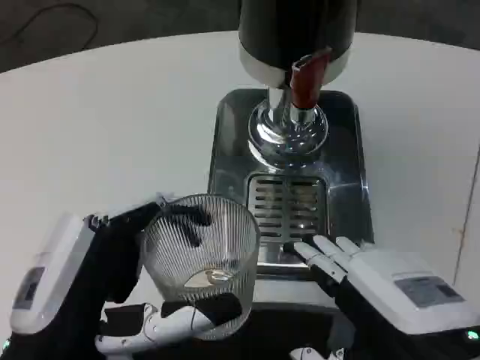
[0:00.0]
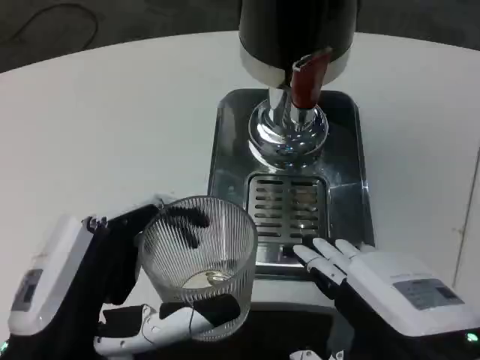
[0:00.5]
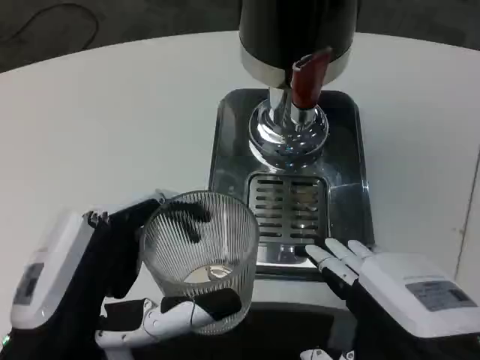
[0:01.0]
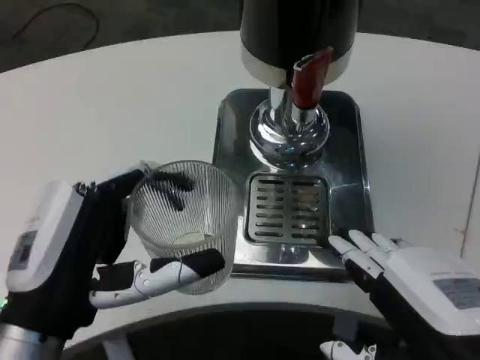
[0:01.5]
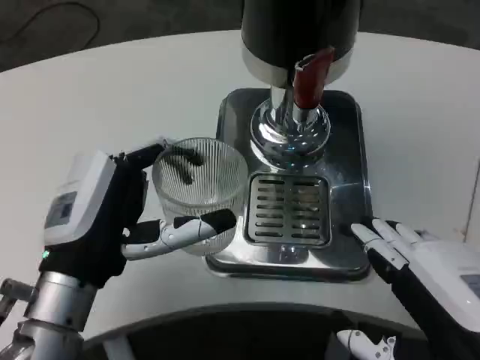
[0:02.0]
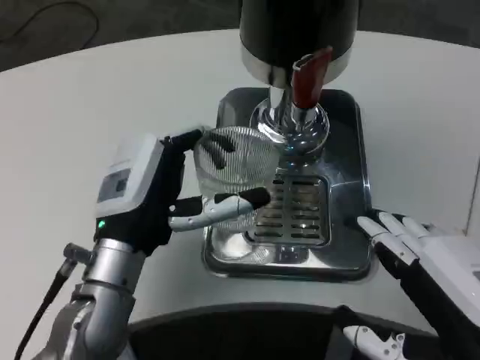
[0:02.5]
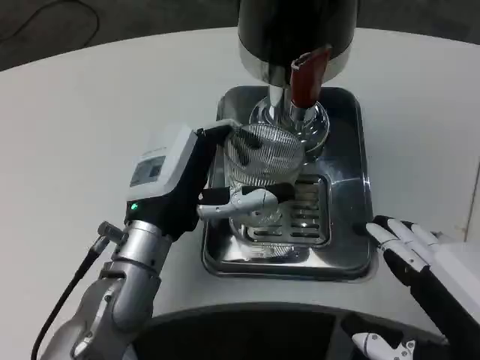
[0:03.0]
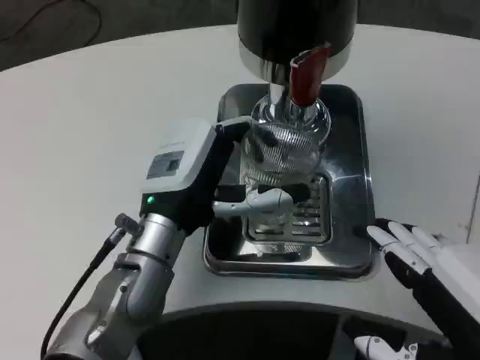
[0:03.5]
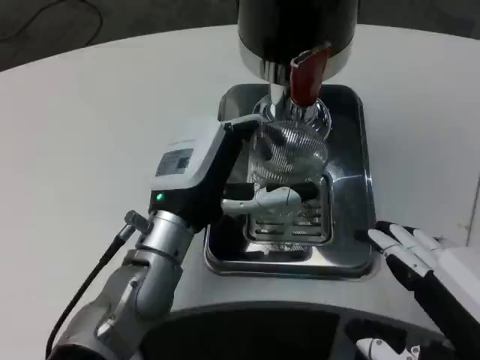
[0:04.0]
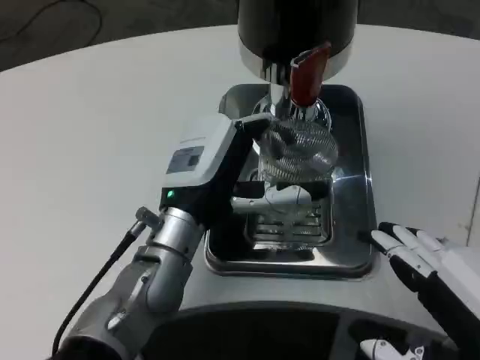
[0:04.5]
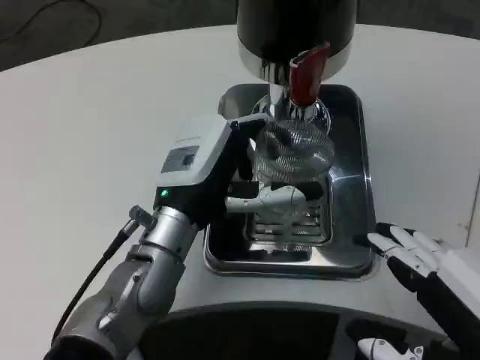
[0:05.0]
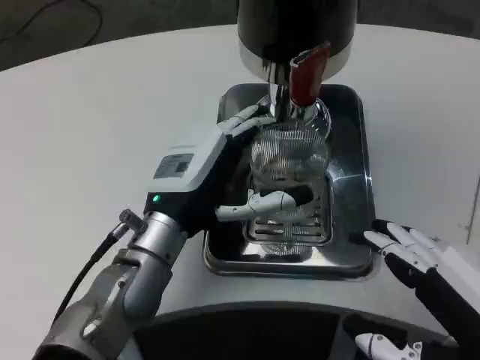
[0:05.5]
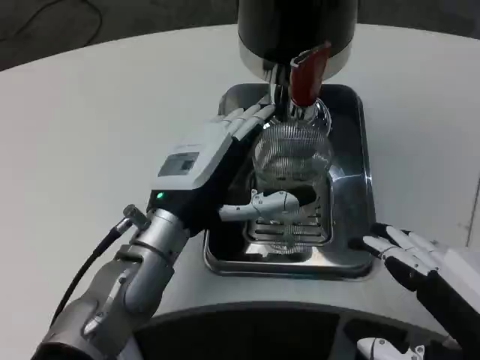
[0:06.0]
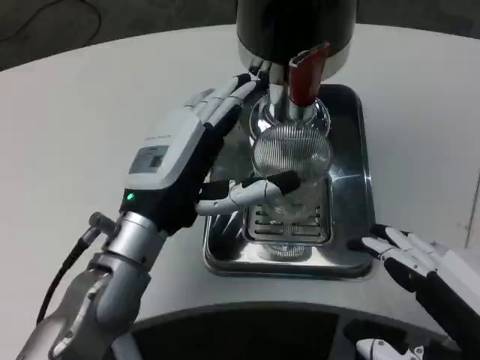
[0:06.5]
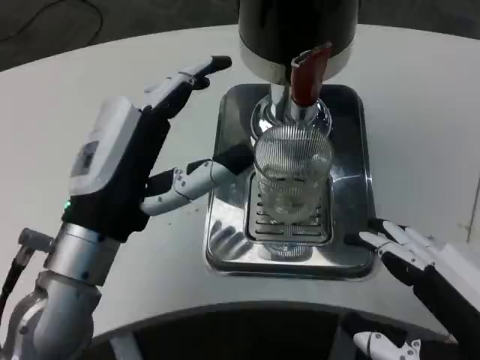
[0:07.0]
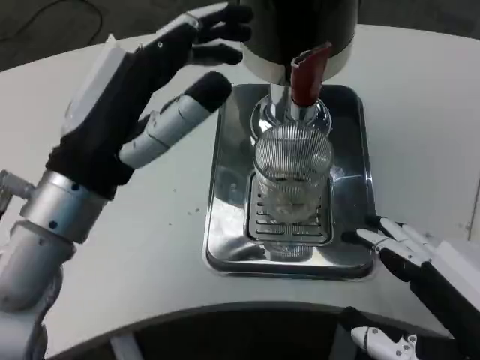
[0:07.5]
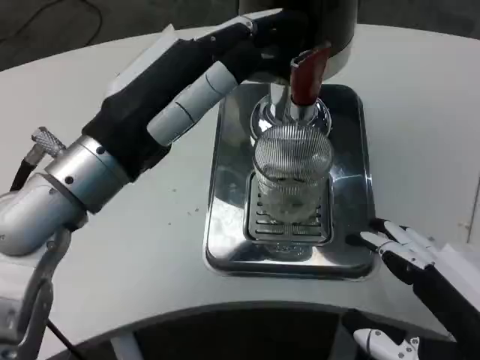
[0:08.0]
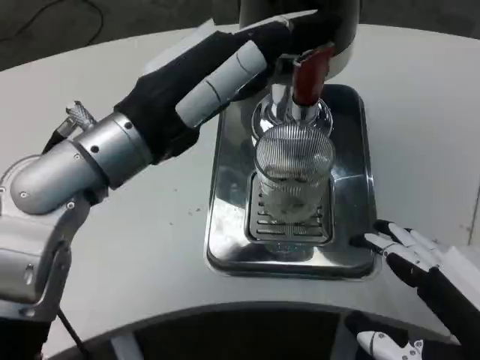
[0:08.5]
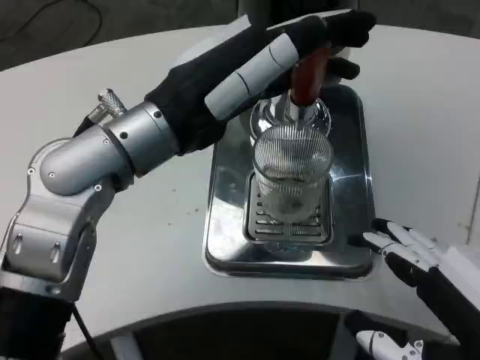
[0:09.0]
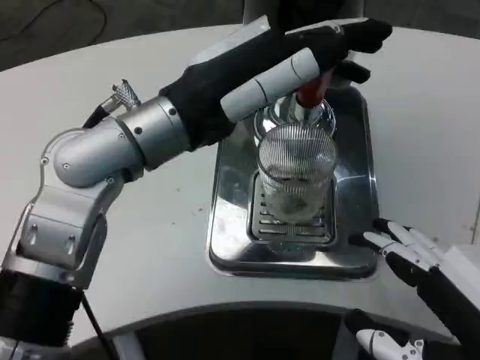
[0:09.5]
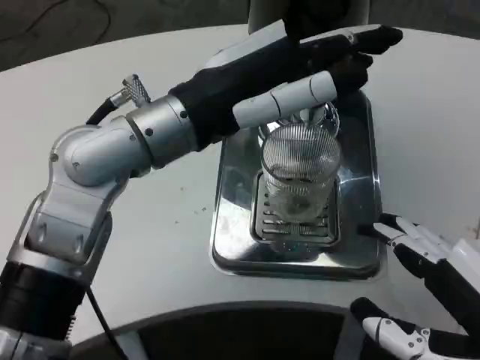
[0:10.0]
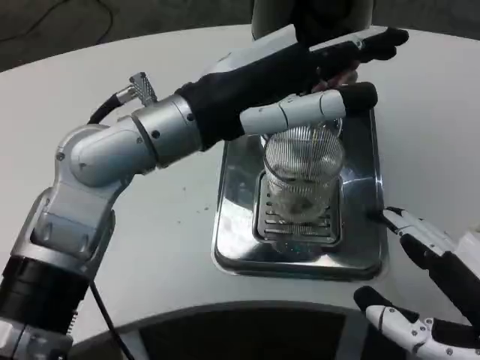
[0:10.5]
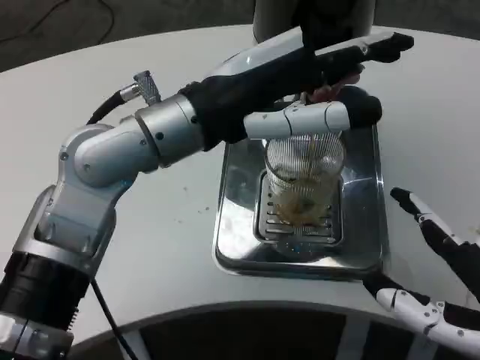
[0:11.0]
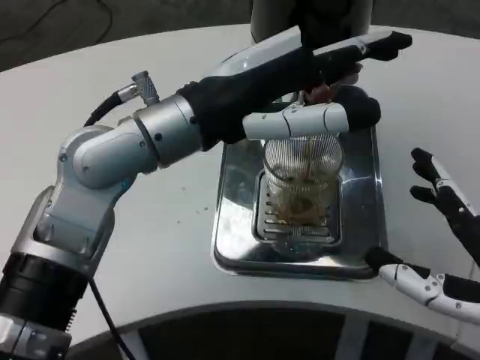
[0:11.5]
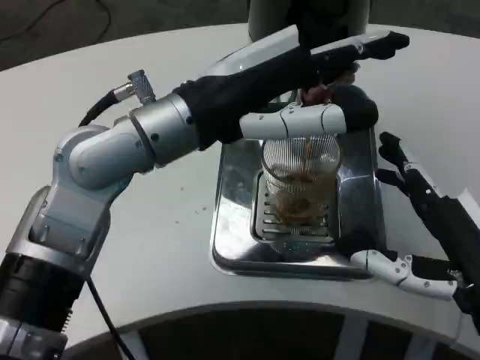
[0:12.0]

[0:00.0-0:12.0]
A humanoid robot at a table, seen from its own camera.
Task of the whole recording: Grasp the cup under the faucet to collect the drink, then remove the cup.
0:00.0 to 0:02.0: The left hand shifts roughly 10 cm forward.
0:02.0 to 0:04.0: The left hand travels forward and to the right by some 10 cm.
0:04.0 to 0:06.0: The hands move only a little.
0:06.0 to 0:08.0: The left hand is displaced upward by roughly 10 cm.
0:08.0 to 0:10.0: The left hand changes place by roughly 5 cm.
0:10.0 to 0:12.0: The right hand travels forward and downward by approximately 10 cm.

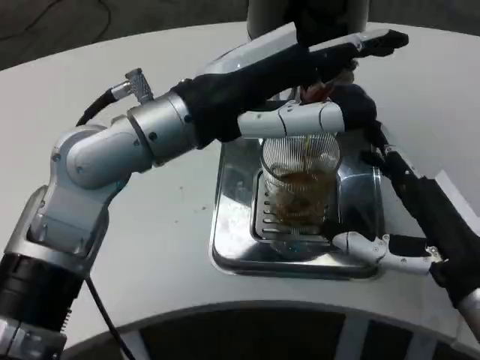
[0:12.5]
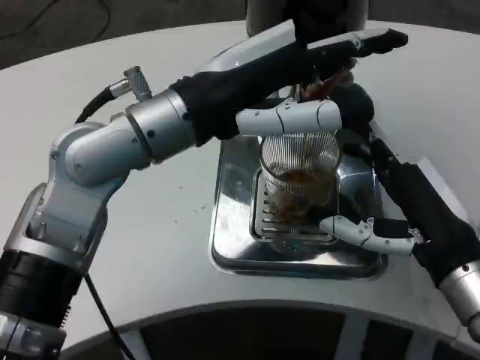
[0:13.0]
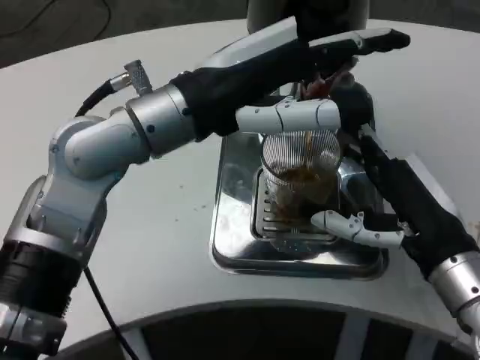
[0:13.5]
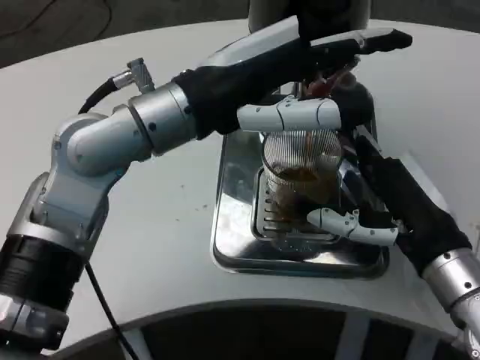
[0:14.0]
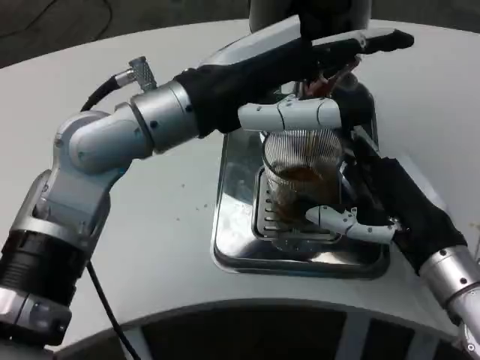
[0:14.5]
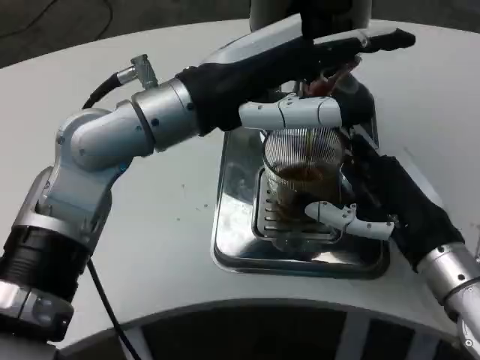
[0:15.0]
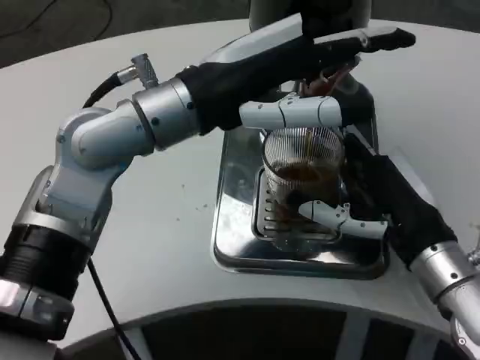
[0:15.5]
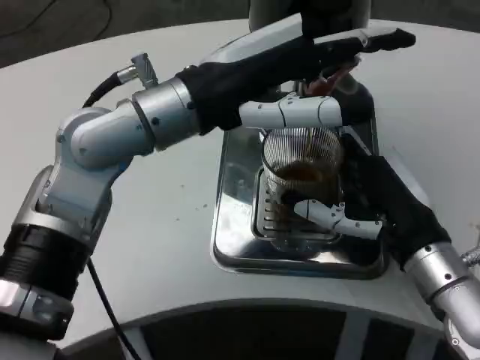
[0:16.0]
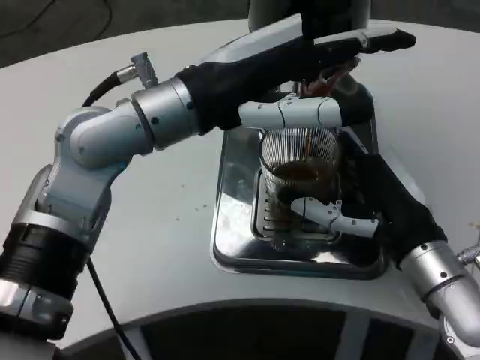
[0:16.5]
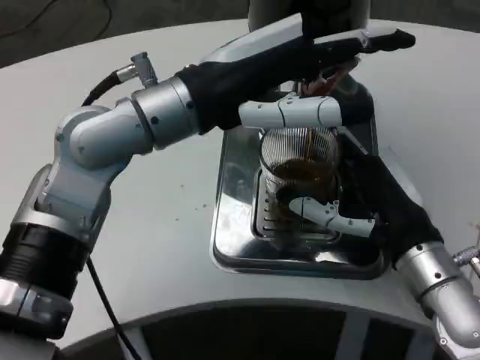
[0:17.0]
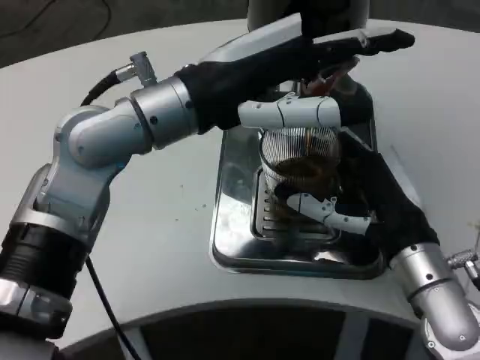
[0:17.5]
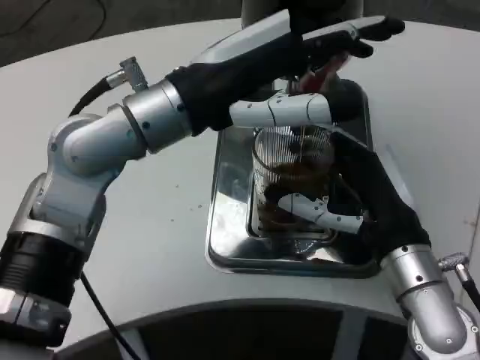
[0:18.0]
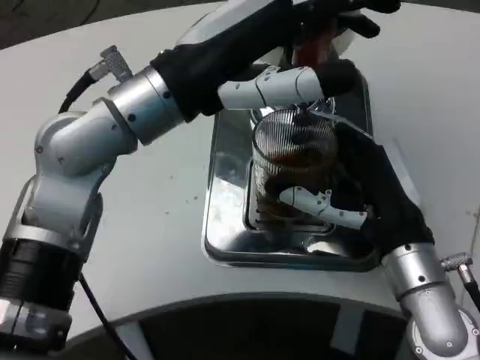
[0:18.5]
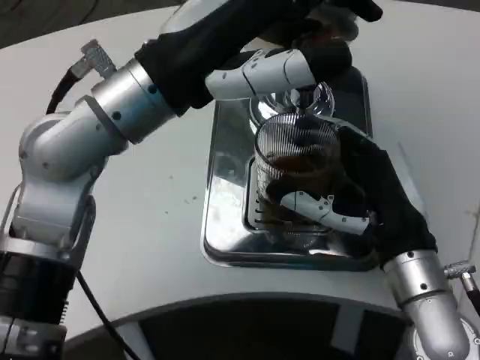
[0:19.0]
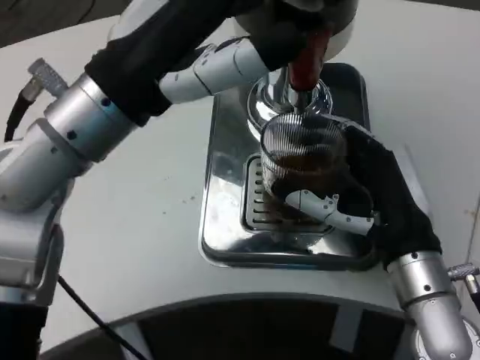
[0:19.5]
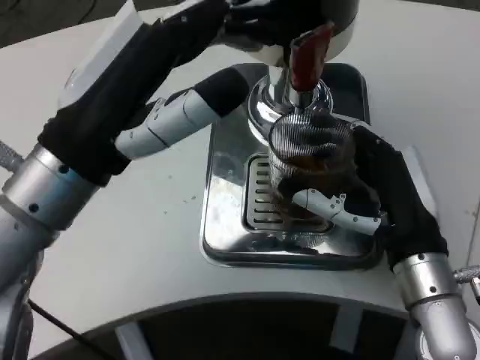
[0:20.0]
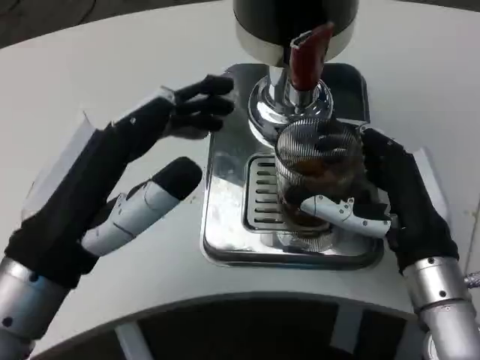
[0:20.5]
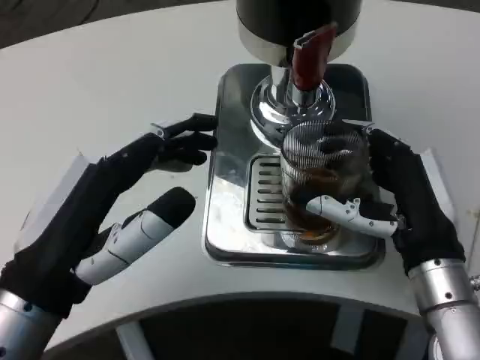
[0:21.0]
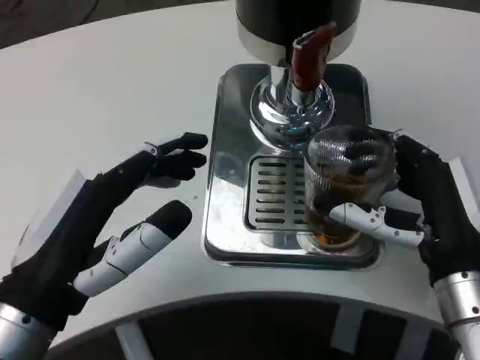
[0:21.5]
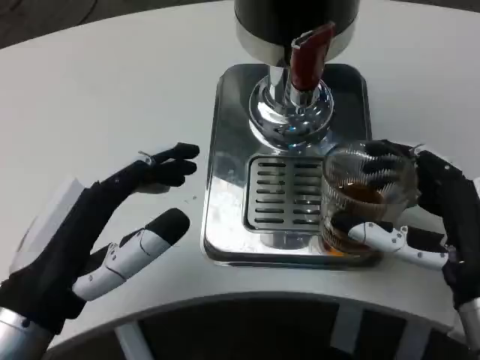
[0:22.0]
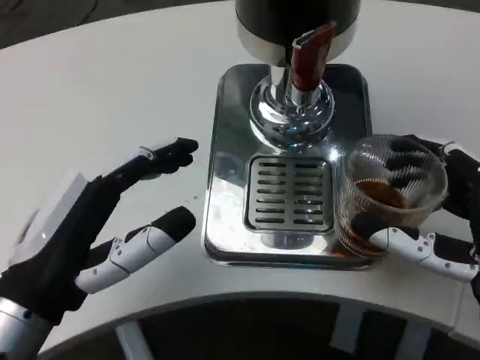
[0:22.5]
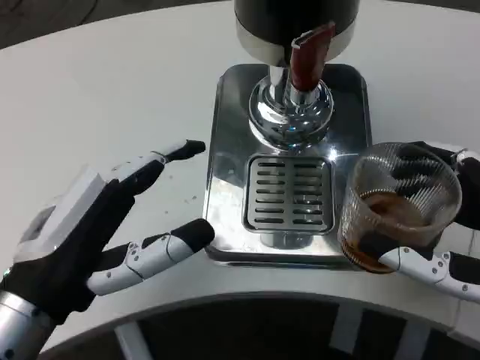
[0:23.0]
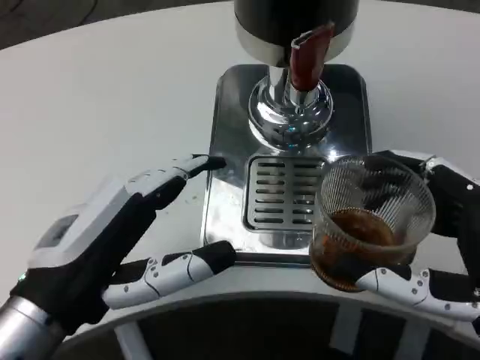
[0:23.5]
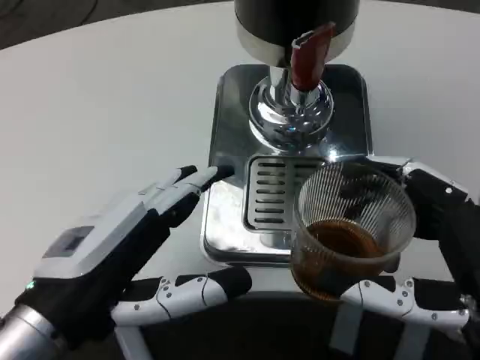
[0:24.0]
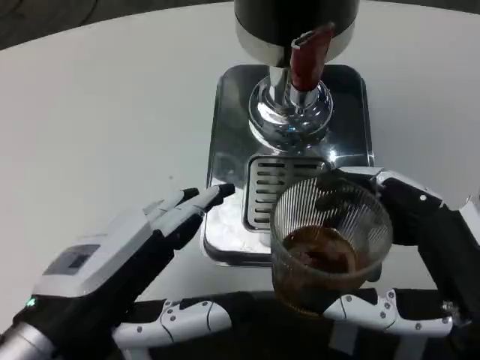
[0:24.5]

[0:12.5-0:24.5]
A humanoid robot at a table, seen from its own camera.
Task of the whole recording: Grasp the cup under the faucet to collect the drink, then remove the cup.
0:14.5 to 0:16.5: The hands move only a little.
0:18.5 to 0:20.5: The left hand shifts roughly 15 cm backward, downward and to the left.
0:20.5 to 0:22.5: The right hand travels backward by some 5 cm.

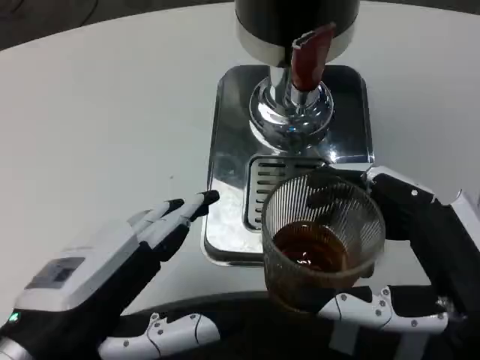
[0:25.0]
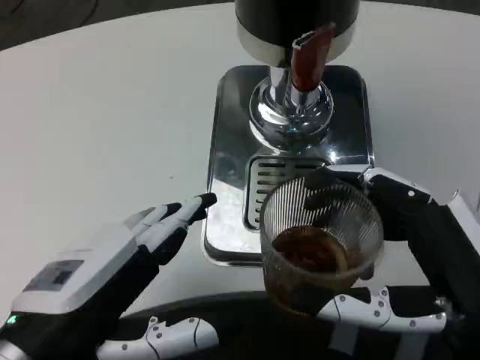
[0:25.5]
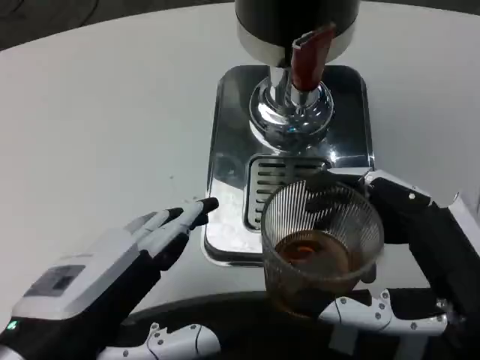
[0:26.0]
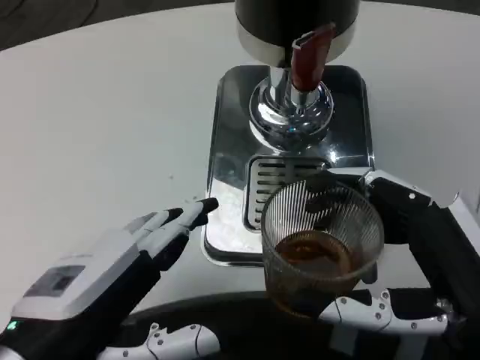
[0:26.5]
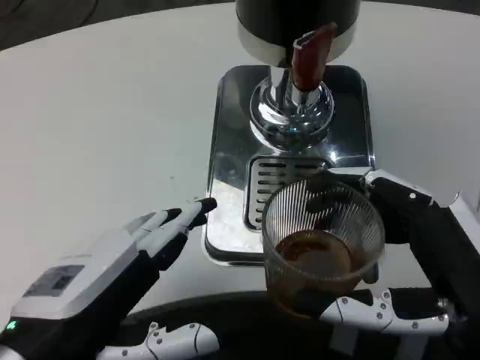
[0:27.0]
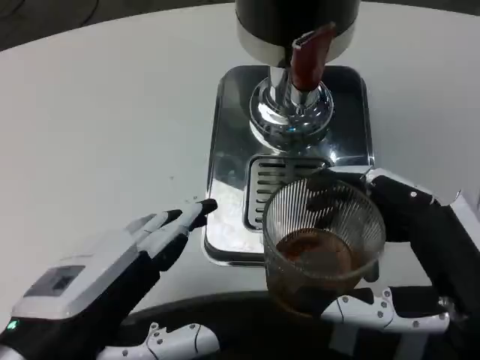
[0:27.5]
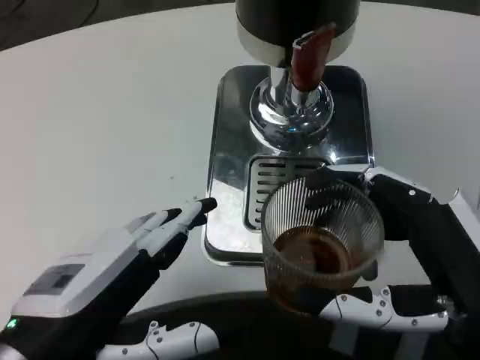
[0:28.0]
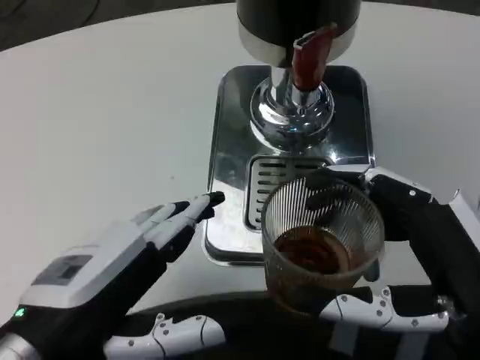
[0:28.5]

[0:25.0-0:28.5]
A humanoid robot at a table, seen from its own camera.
Task of the whole recording: Grasp the cup under the faucet to collect the drink, then remove the cup.
0:25.0 to 0:28.5: Both hands stay put.
